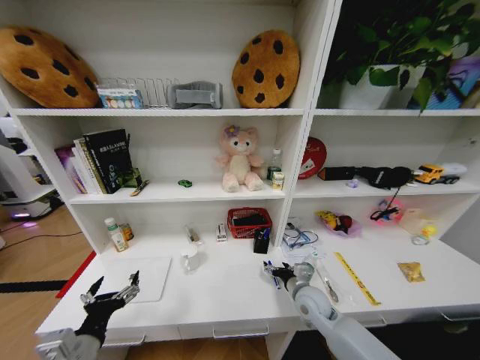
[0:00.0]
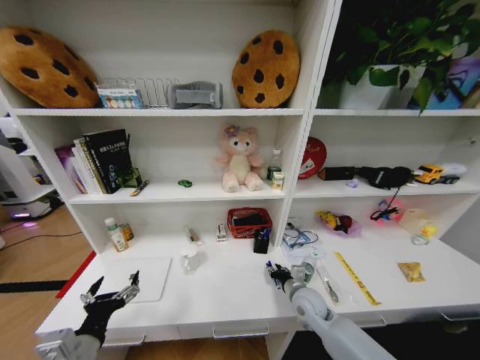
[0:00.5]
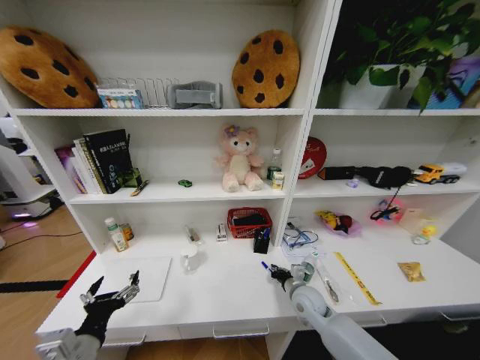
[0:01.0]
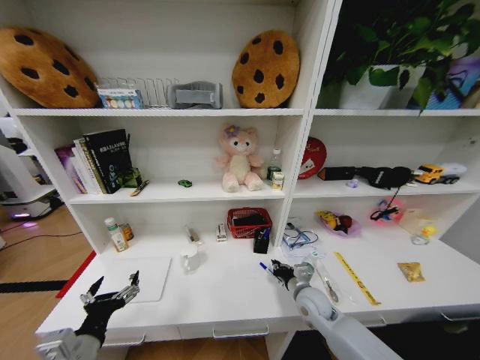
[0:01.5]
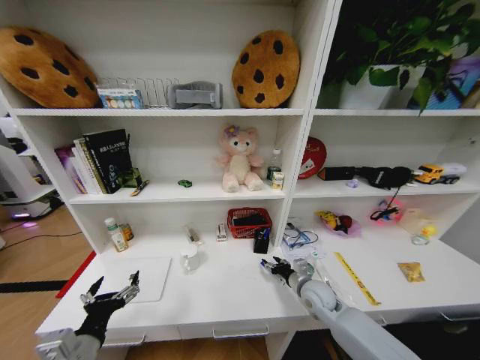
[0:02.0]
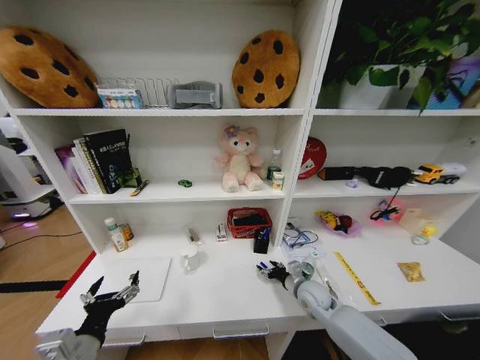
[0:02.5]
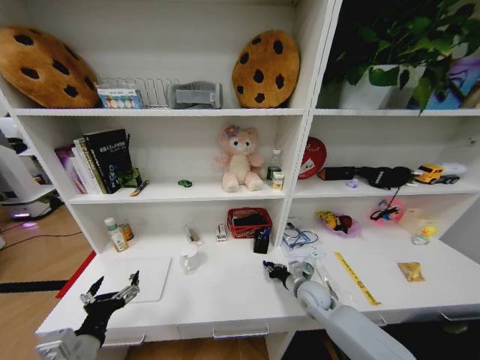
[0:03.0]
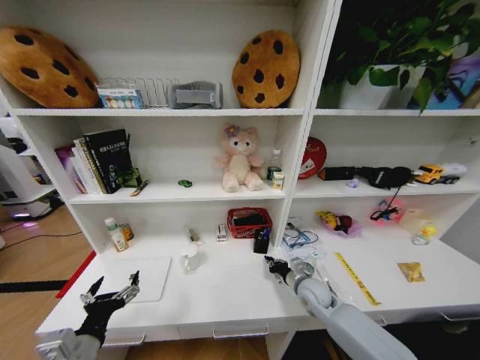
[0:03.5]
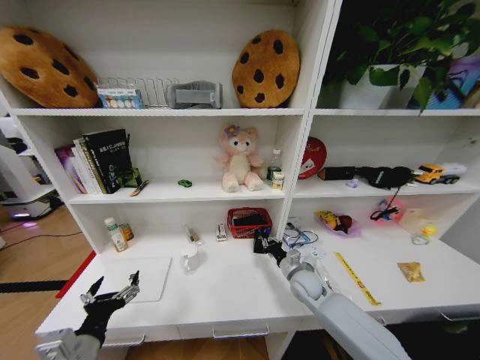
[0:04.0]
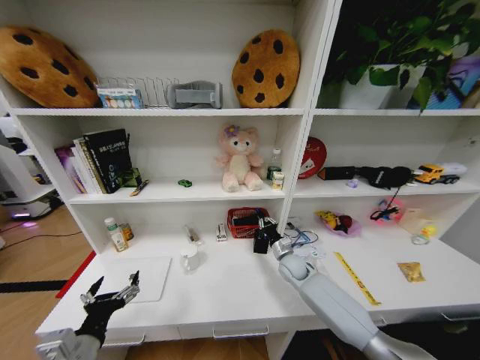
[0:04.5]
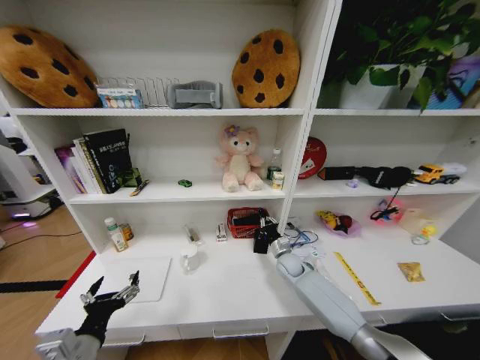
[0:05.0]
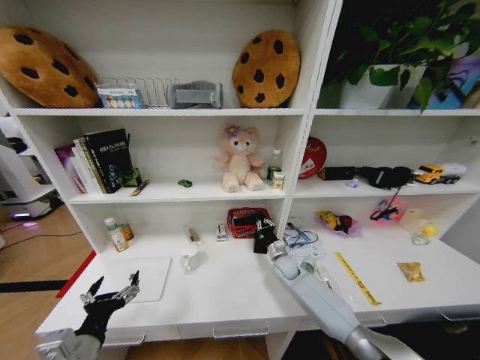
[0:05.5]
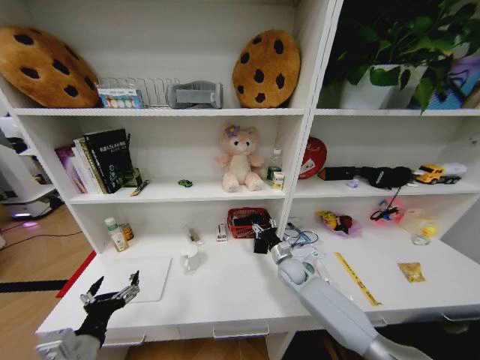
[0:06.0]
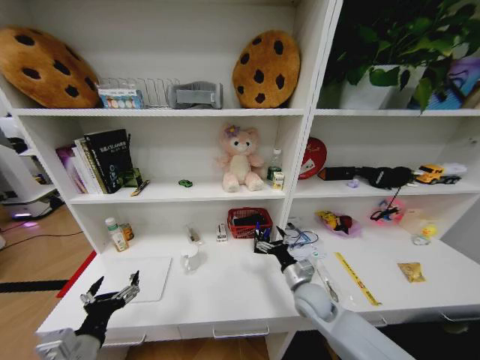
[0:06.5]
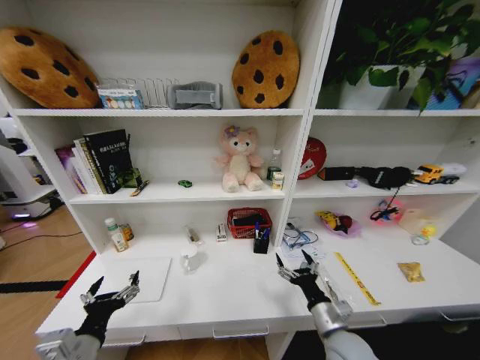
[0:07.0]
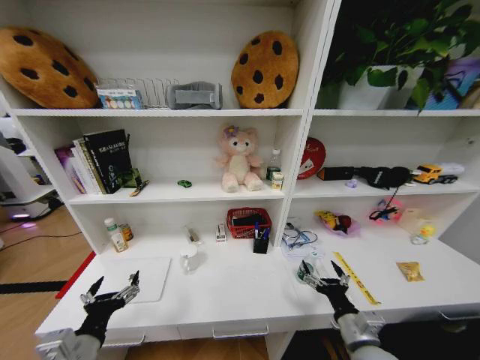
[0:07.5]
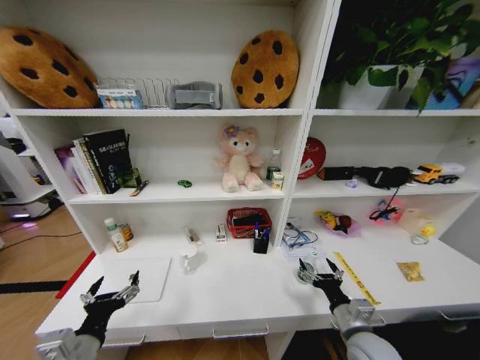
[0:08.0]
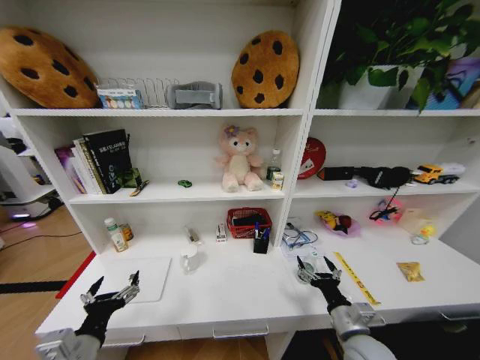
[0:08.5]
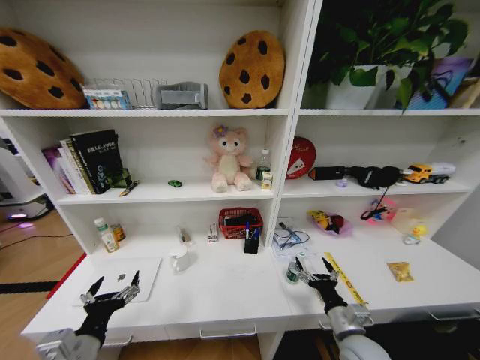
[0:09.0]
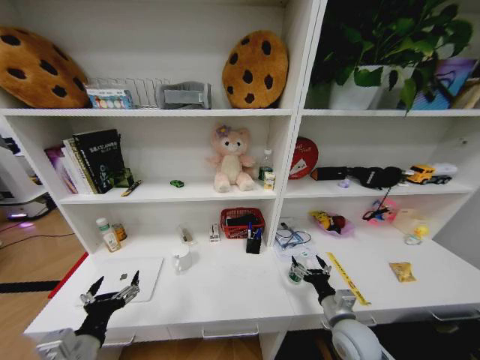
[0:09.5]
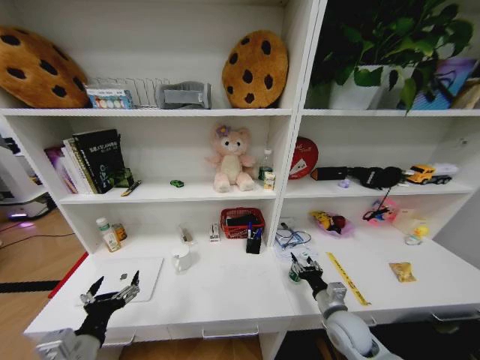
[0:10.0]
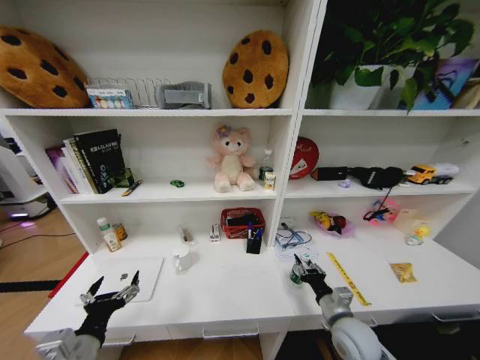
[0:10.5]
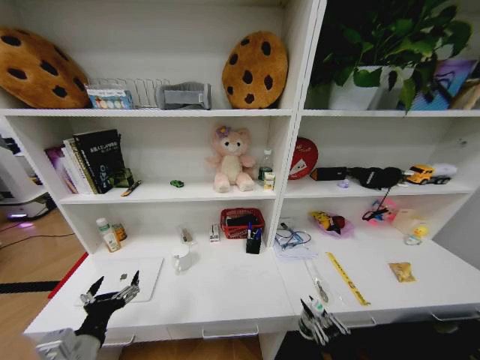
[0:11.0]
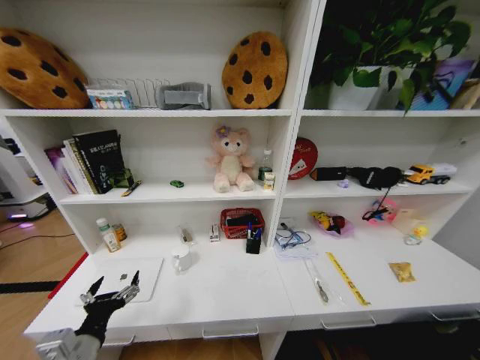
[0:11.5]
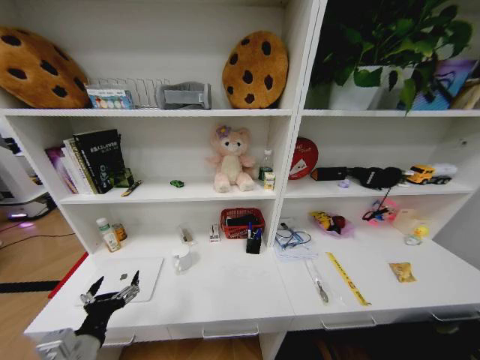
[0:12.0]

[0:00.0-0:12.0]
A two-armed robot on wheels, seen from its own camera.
Task of the whole recording: Organize the objects on the table.
0:00.0 to 0:02.0: The right gripper closes.
0:02.0 to 0:04.0: The right gripper closes its fingers.
0:04.0 to 0:06.0: The right gripper is displaced forward by roughly 5 cm, and opens up.
0:06.0 to 0:08.0: The right gripper travels backward by some 25 cm, and opens its fingers.
0:08.0 to 0:10.0: The right gripper goes about 5 cm forward, and closes its fingers.
0:10.0 to 0:12.0: The right gripper goes approximately 40 cm backward and downward.

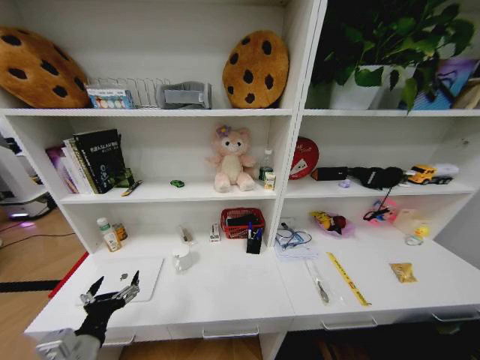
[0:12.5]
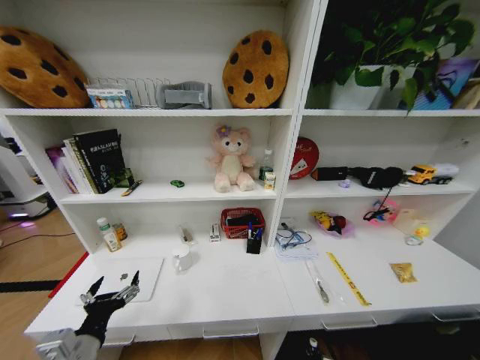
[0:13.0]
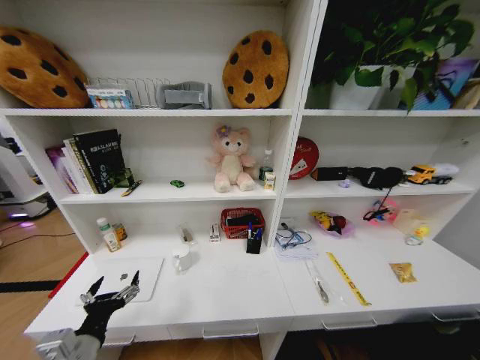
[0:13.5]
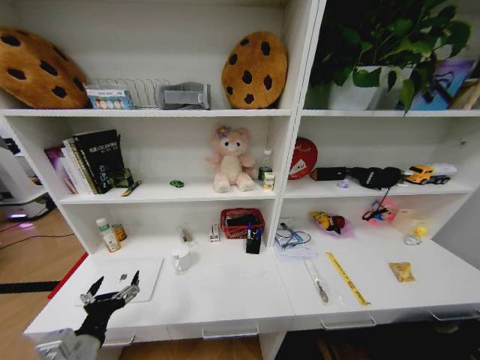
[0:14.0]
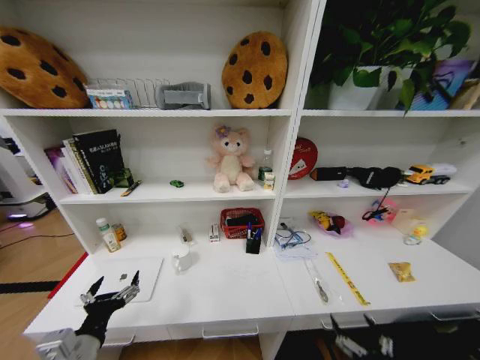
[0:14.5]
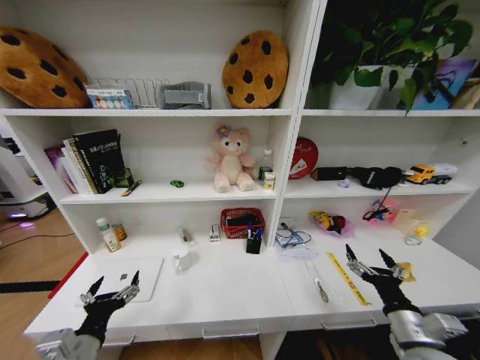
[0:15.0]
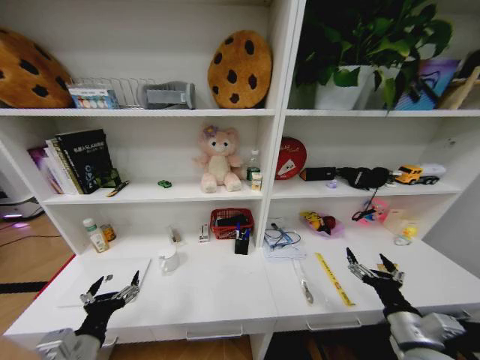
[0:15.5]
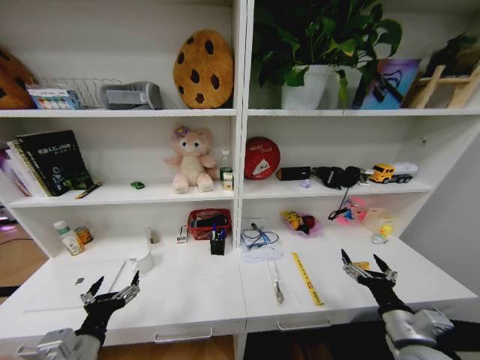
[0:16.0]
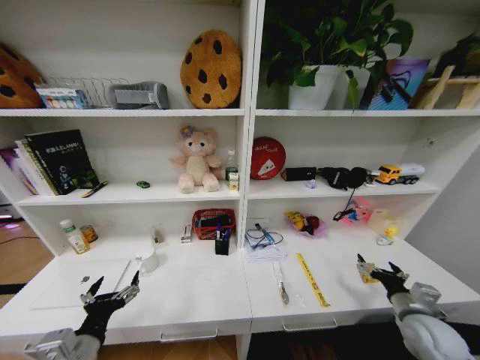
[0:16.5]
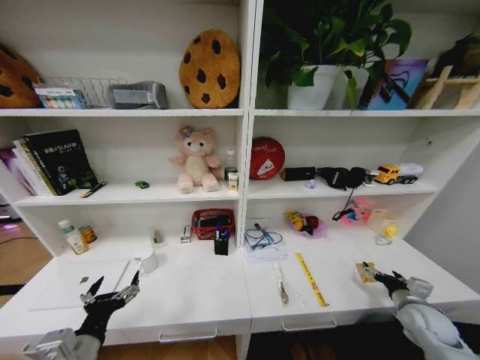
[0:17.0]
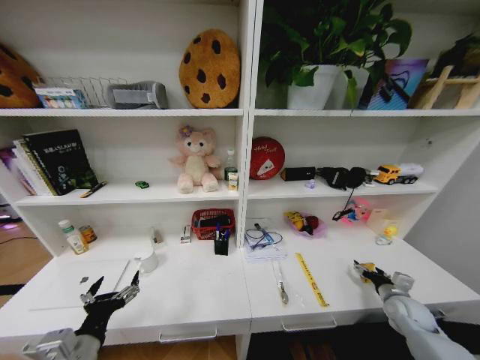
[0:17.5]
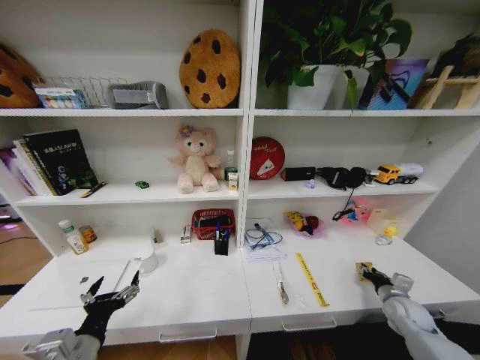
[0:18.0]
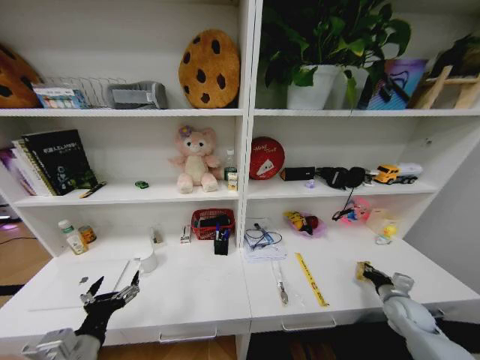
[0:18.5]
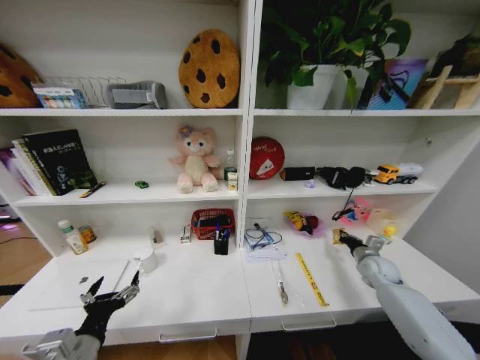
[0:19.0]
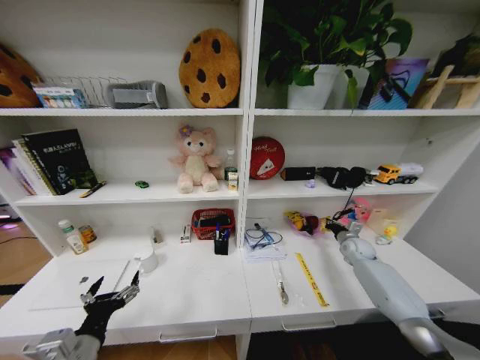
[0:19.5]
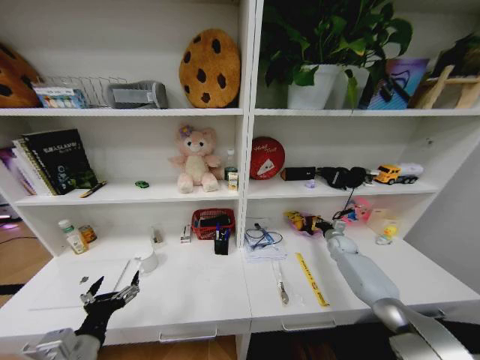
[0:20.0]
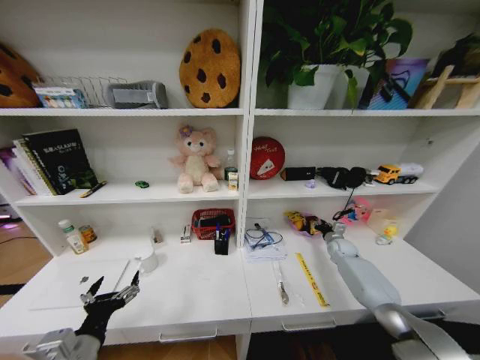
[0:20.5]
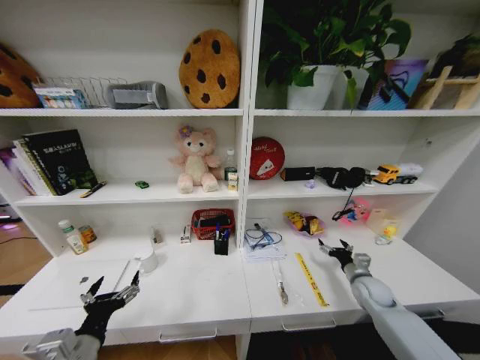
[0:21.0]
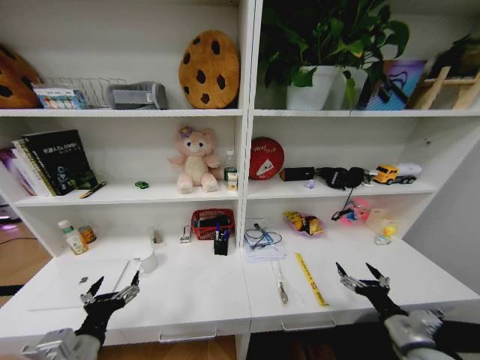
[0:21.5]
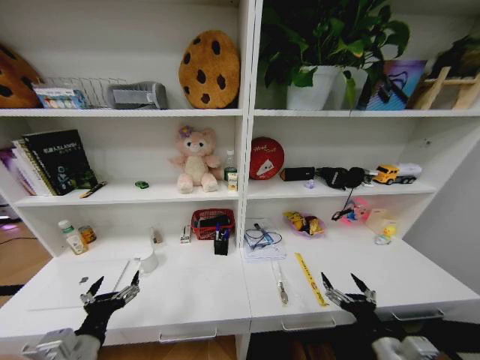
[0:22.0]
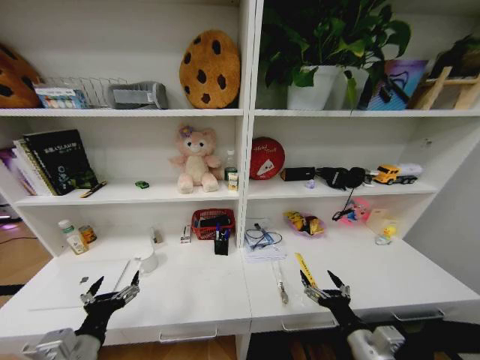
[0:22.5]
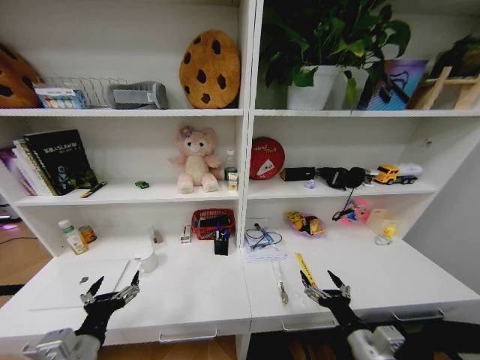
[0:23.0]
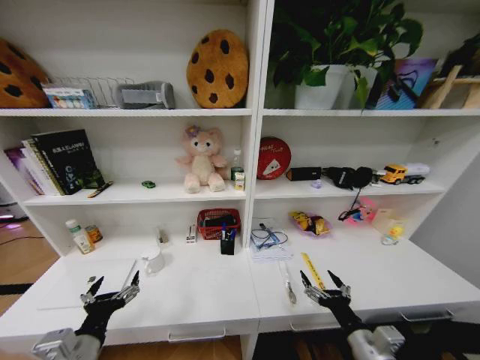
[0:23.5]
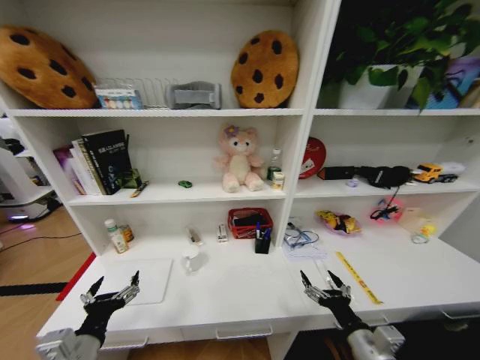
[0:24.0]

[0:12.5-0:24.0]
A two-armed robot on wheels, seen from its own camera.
Task of the whole recording: Organize the objects on the table.
0:12.5 to 0:14.5: The right gripper goes some 30 cm upward, and opens up.
0:14.5 to 0:16.5: The right gripper travels forward and to the right by approximately 20 cm.
0:16.5 to 0:18.5: The right gripper travels forward, downward and to the right by roughly 10 cm, and closes up.
0:18.5 to 0:20.0: The right gripper travels forward by some 20 cm.
0:20.0 to 0:22.0: The right gripper is displaced backward by approximately 40 cm, and opens its fingers.
0:22.0 to 0:24.0: The right gripper shifts by some 5 cm.
